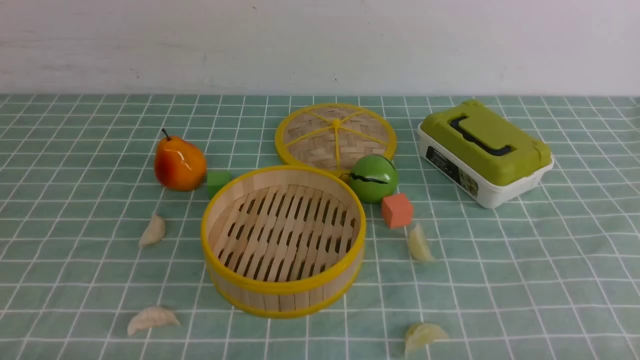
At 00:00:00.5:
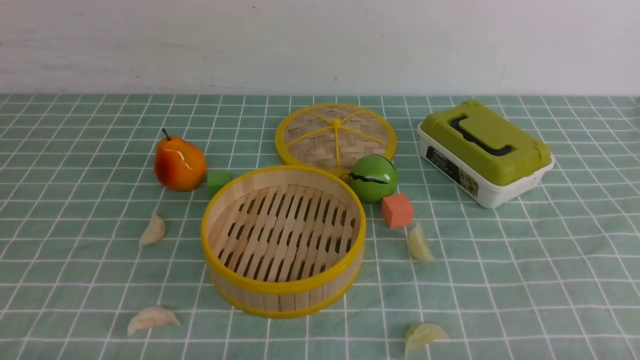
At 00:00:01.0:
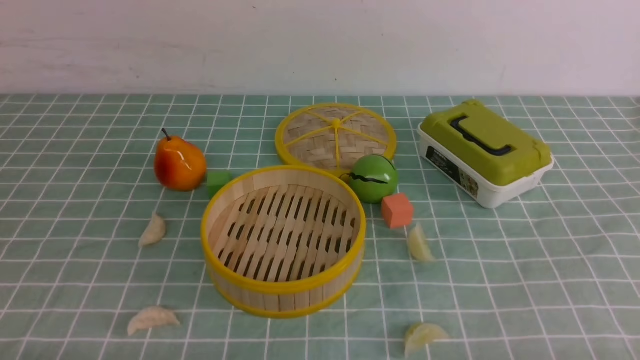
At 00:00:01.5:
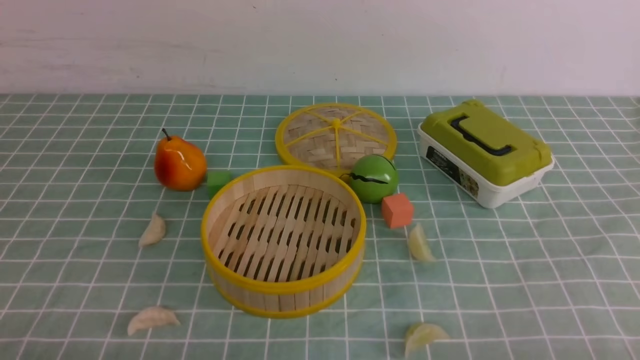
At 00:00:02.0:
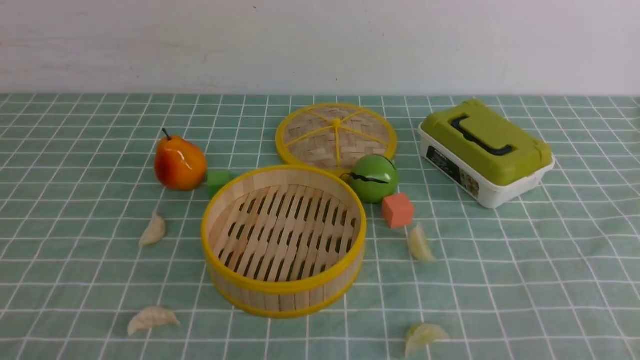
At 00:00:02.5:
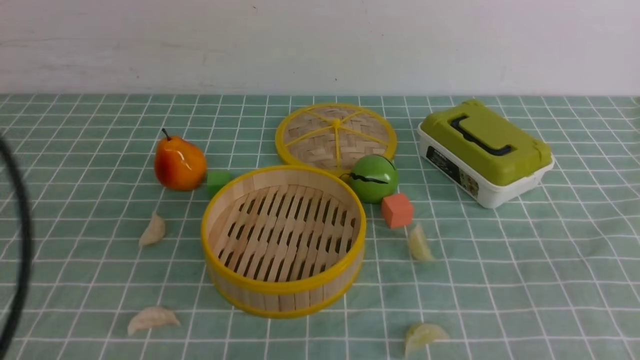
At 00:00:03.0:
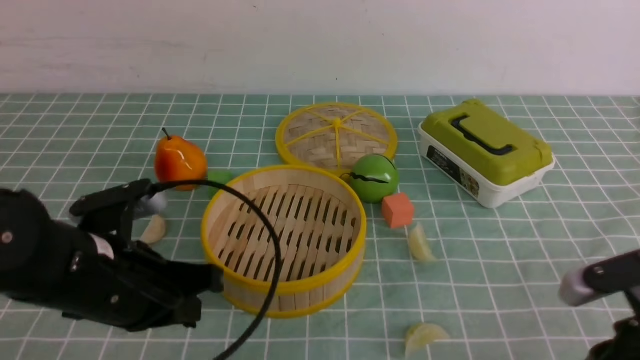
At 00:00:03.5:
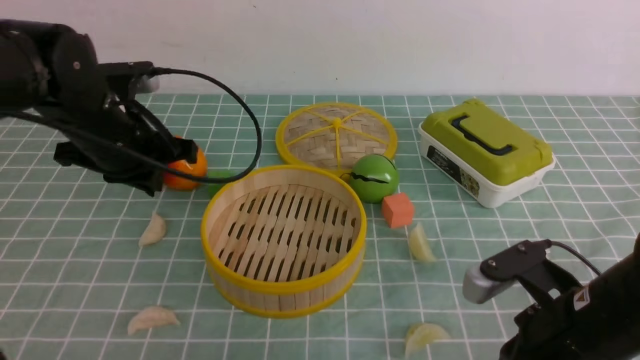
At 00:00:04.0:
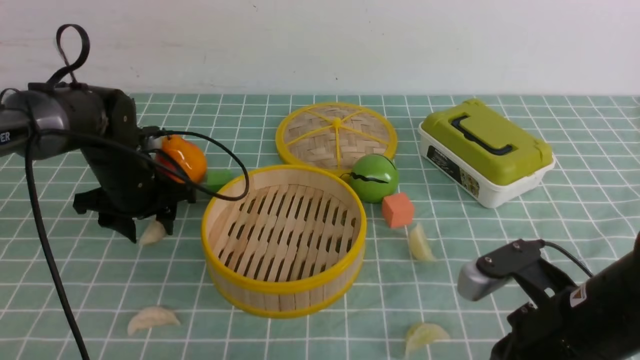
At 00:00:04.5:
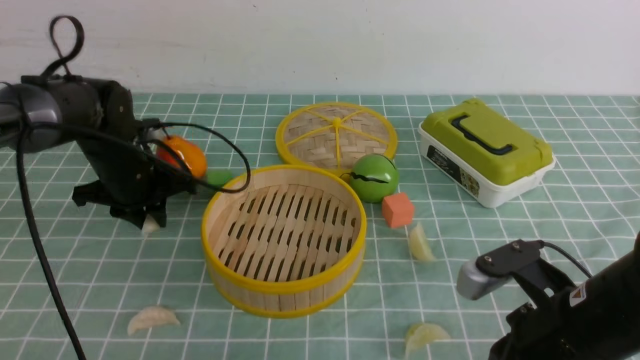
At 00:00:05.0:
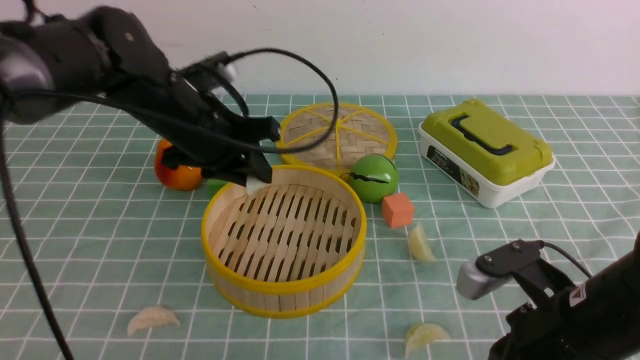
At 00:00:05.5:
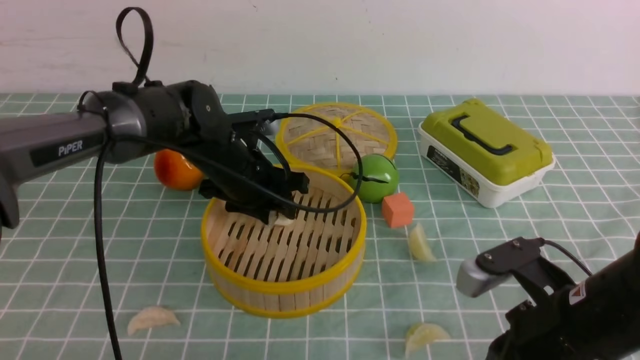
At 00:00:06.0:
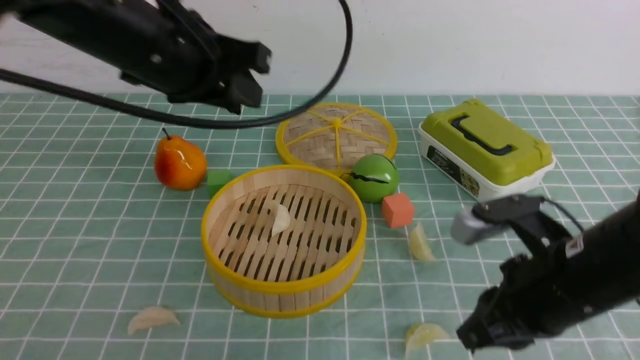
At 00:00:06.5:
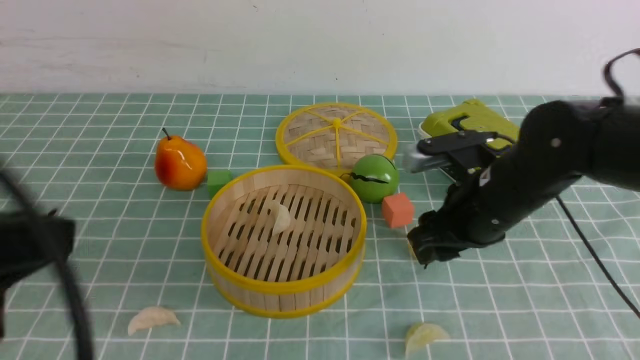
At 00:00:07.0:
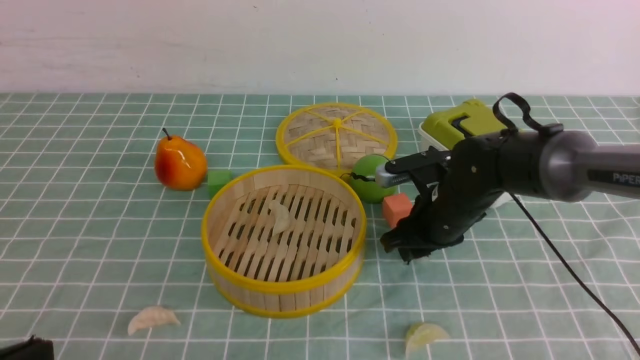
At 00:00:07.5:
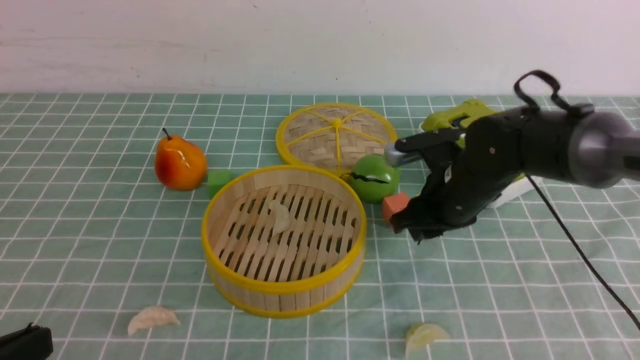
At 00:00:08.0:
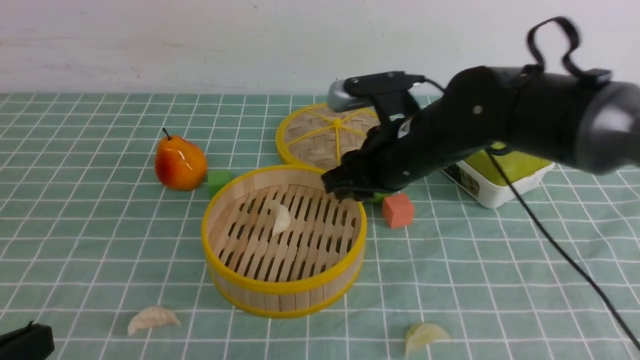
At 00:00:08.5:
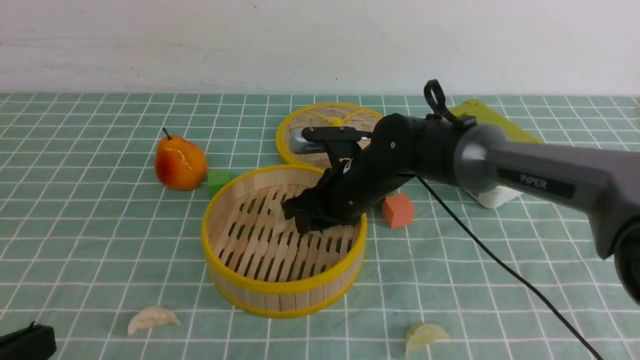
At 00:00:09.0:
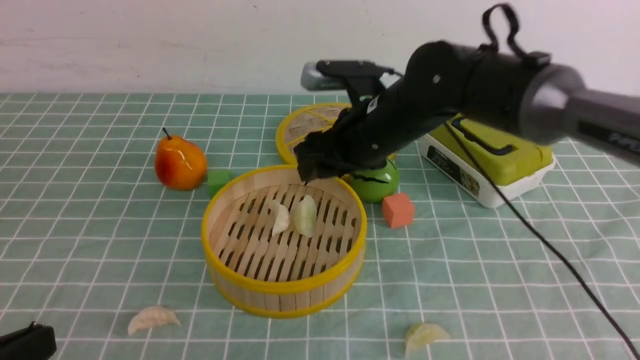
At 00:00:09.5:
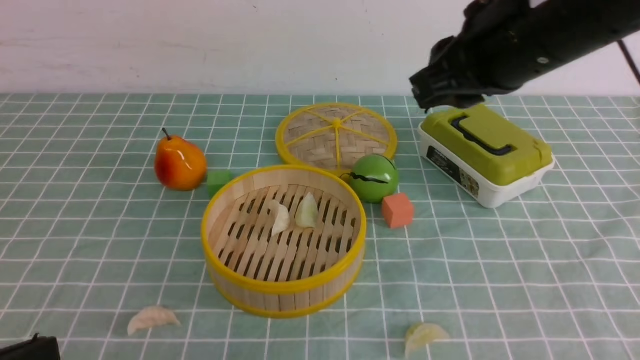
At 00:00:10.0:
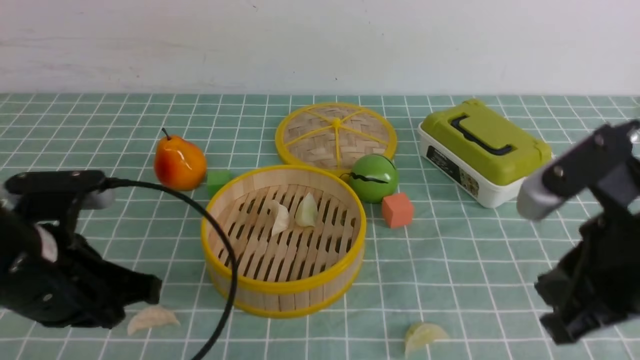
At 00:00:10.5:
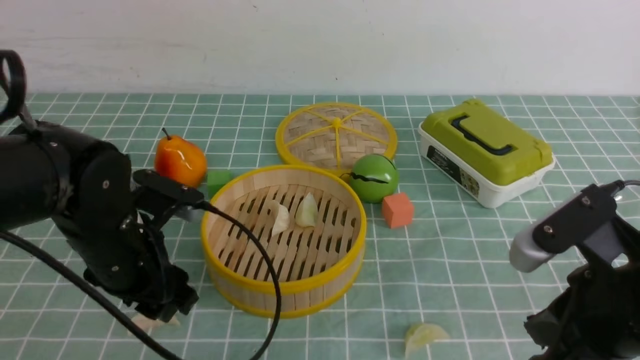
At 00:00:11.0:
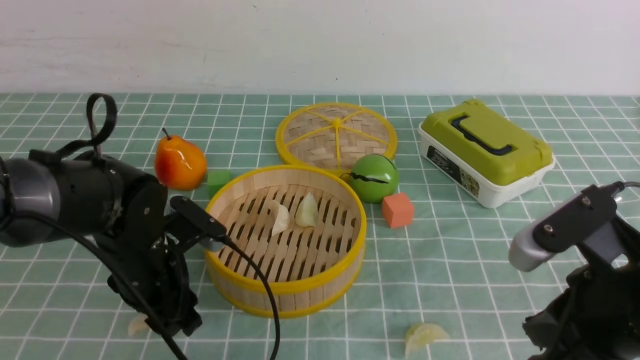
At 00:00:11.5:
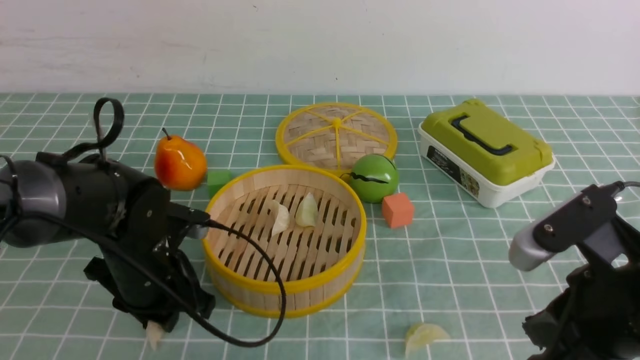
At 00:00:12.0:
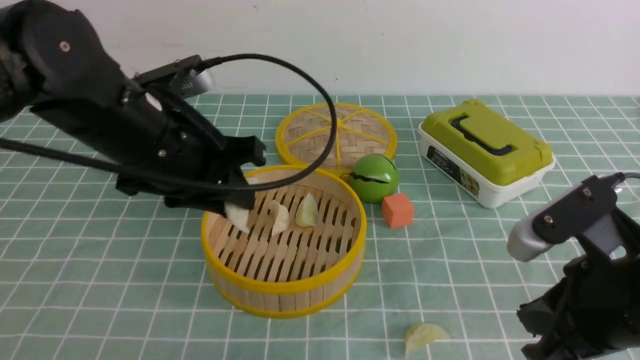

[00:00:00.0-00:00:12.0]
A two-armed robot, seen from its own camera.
Task of the whole recording: put the dumplings into the steamer on the table with the blue tablecloth.
Step, 00:00:00.0 to 00:00:04.5: use the left arm to grab a dumpling.
Step, 00:00:05.0 to 00:00:05.5: use the left arm to put the dumpling into the steamer.
Step, 00:00:06.0 to 00:00:07.5: use the right arm to grab a dumpling.
Step, 00:00:08.0 to 00:00:09.0: use the right arm to put the dumpling into the steamer.
Step, 00:00:09.5 to 00:00:11.5: use the left arm to grab a dumpling.
00:00:02.0 to 00:00:04.0: The left gripper heads forward, covering about 40 cm, and opens up; the right gripper goes about 20 cm forward, to the left and downward.
00:00:04.0 to 00:00:06.0: The left gripper moves up and down over about 20 cm, changing direction 2 times, and closes up.
00:00:06.0 to 00:00:08.0: The left gripper shifts approximately 30 cm backward, downward and to the left, and closes its fingers. The right gripper shifts approximately 15 cm forward and to the left.
00:00:08.0 to 00:00:10.0: The left gripper goes roughly 15 cm forward. Meanwhile the right gripper heads backward and to the right, covering approximately 20 cm, and closes its fingers.
00:00:10.0 to 00:00:12.0: The left gripper travels forward and to the right by approximately 10 cm, reaches some 10 cm downward, then returns, and opens its fingers.

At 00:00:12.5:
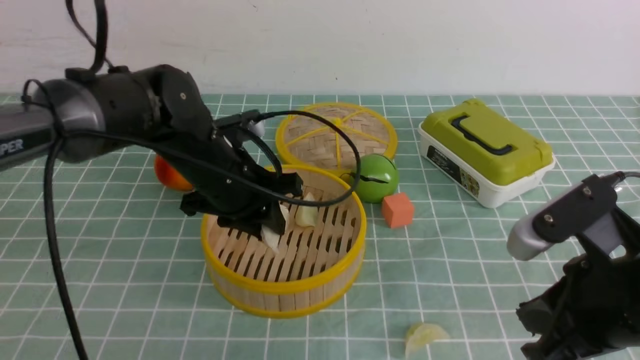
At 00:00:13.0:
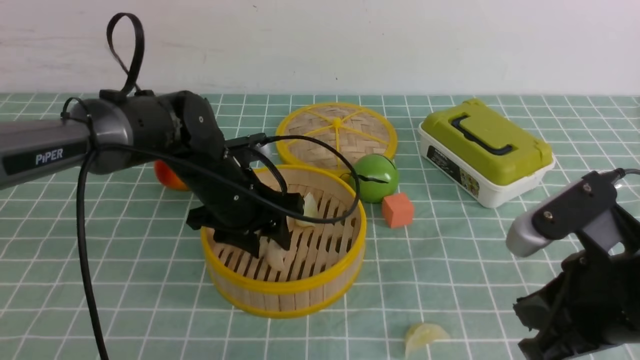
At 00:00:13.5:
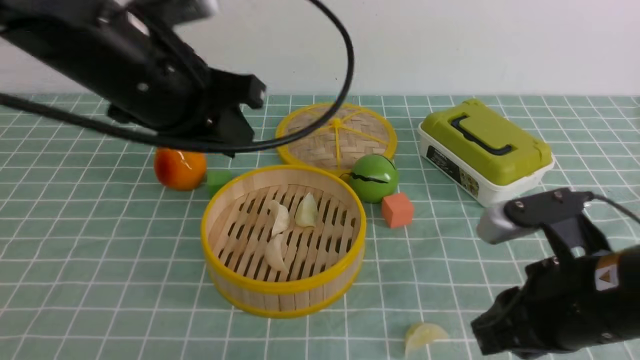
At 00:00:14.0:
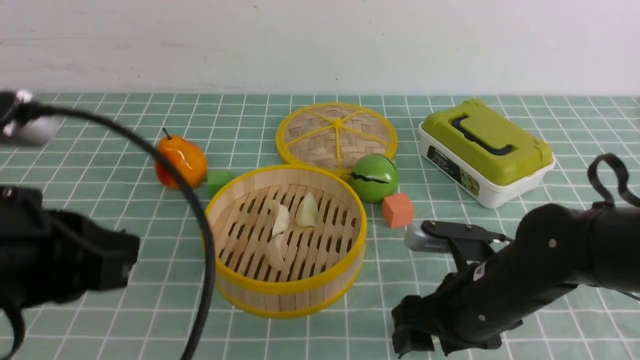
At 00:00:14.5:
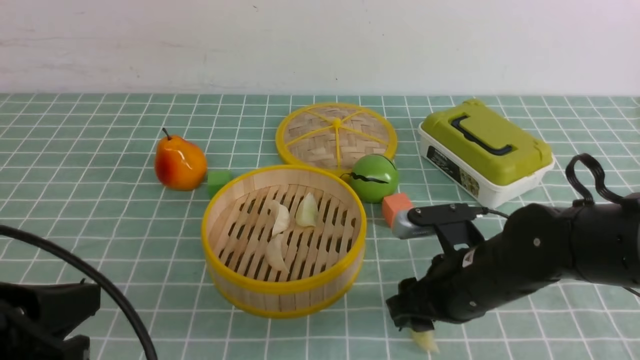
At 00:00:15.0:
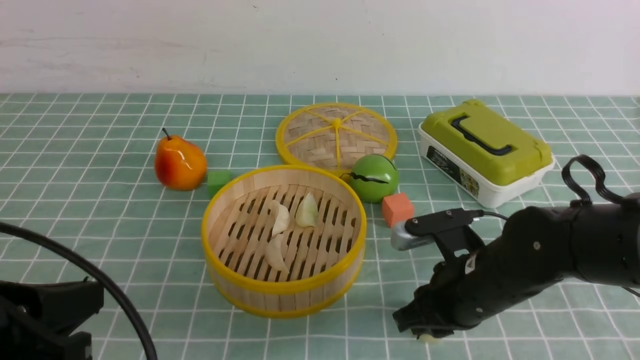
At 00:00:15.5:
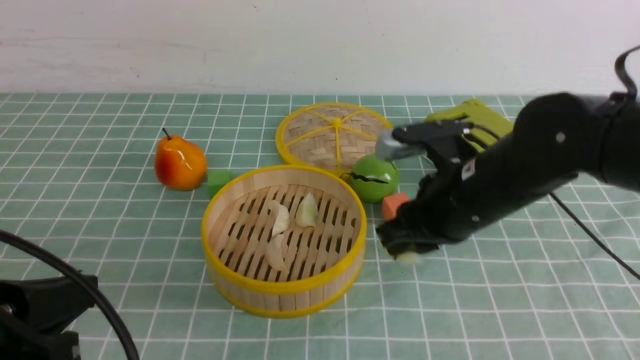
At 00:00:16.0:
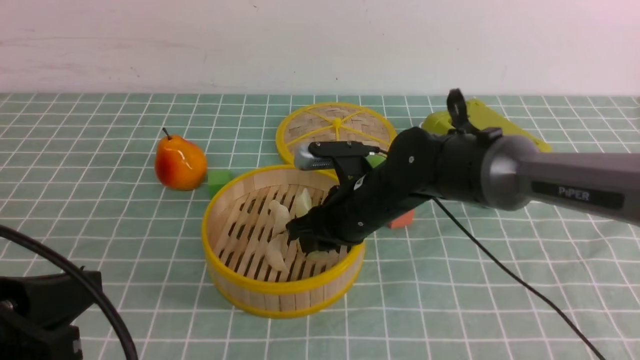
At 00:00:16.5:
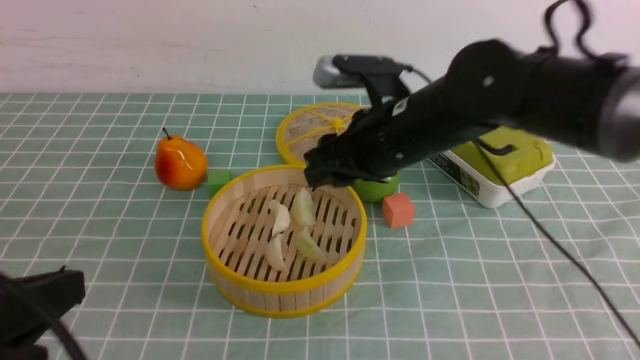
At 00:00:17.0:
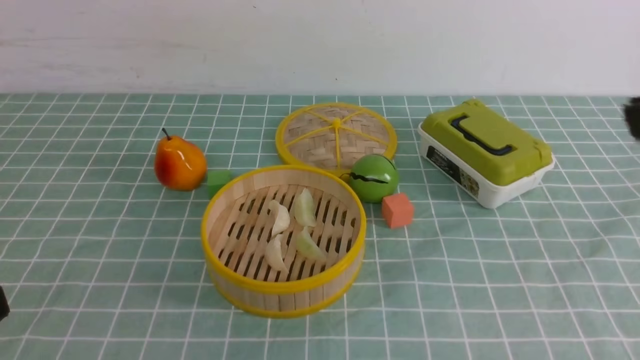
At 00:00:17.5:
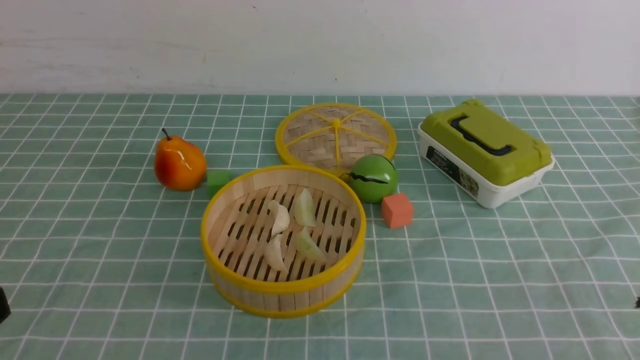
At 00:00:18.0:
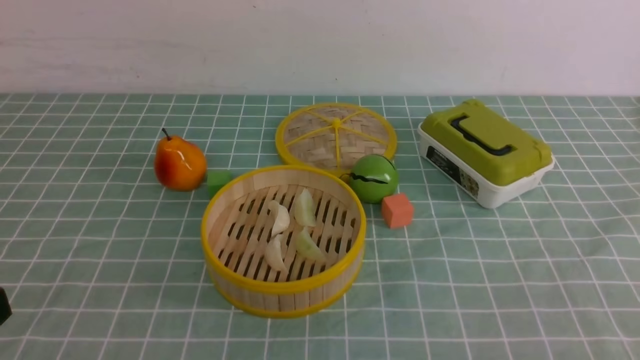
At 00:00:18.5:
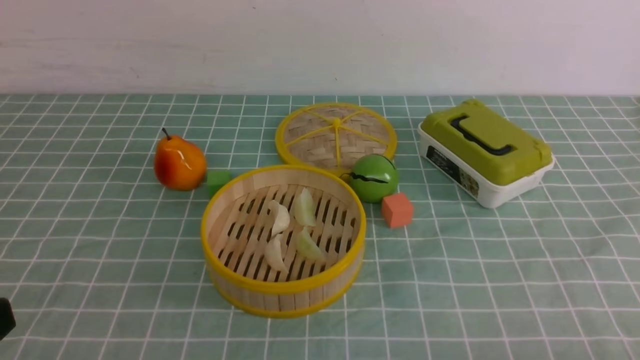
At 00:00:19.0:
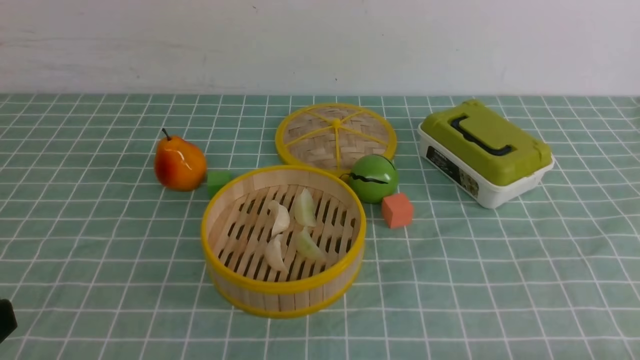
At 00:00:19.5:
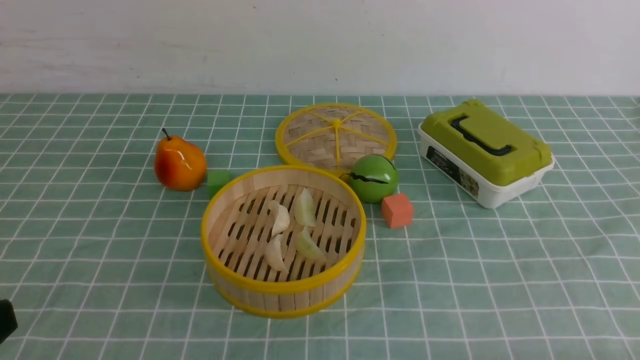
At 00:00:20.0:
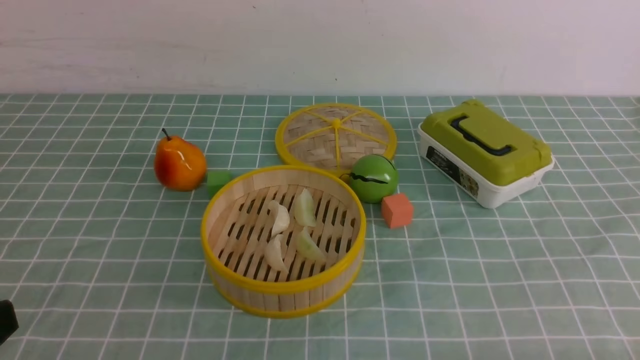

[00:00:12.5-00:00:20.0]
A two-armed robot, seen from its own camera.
Task of the whole recording: put the dumplings into the steamer on the table with the blue tablecloth.
Step, 00:00:12.5 to 00:00:13.5: use the left arm to put the dumpling into the steamer.
Step, 00:00:14.0 to 00:00:15.0: use the right arm to grab a dumpling.
Step, 00:00:15.5 to 00:00:16.0: use the right arm to put the dumpling into the steamer.
00:00:12.5 to 00:00:14.5: The right gripper is displaced downward, forward and to the left by approximately 15 cm, and opens up, while the left gripper moves backward and to the left, approximately 30 cm, and closes up.
00:00:14.5 to 00:00:16.5: The right gripper swings up and down, approximately 15 cm each way, with 2 reversals.
00:00:16.5 to 00:00:18.0: The right gripper heads backward and to the right, covering some 35 cm, and closes its fingers.
